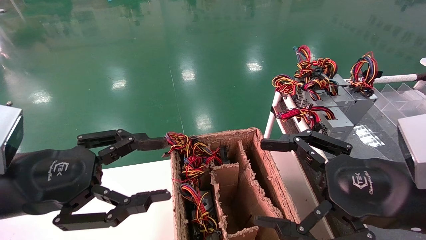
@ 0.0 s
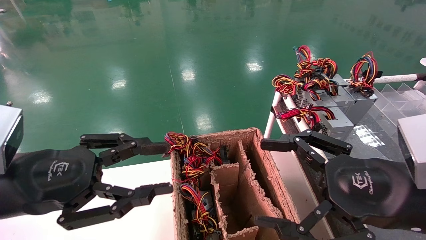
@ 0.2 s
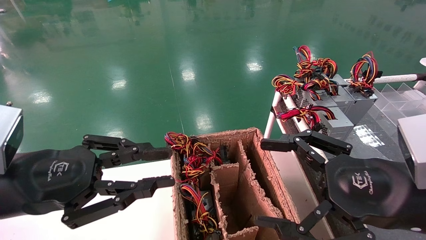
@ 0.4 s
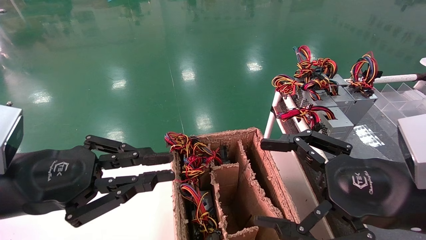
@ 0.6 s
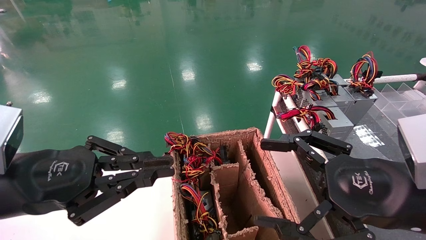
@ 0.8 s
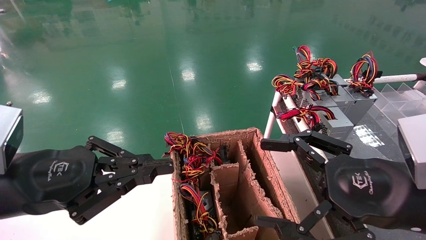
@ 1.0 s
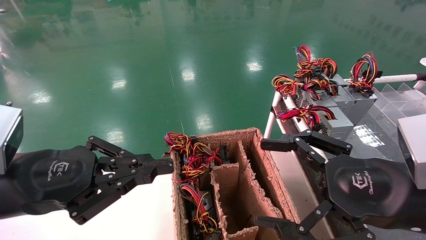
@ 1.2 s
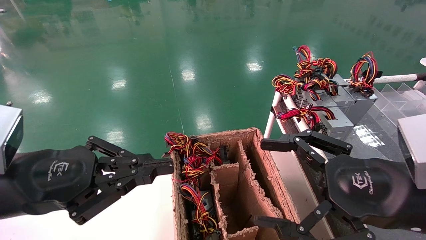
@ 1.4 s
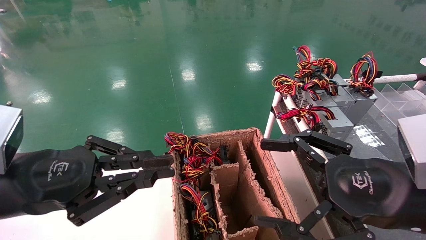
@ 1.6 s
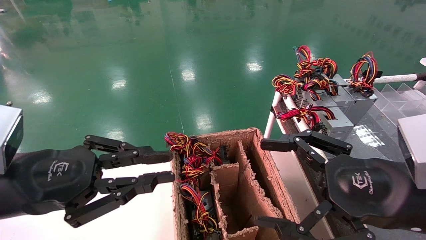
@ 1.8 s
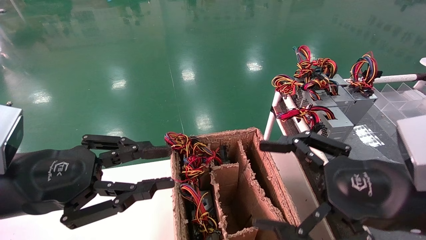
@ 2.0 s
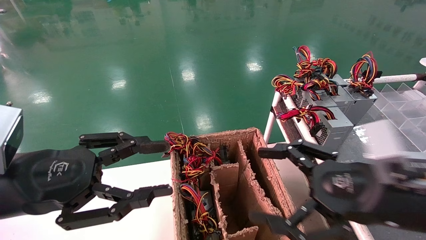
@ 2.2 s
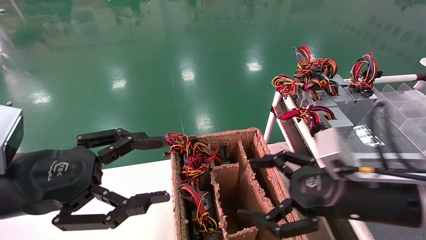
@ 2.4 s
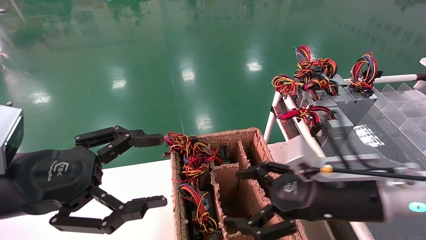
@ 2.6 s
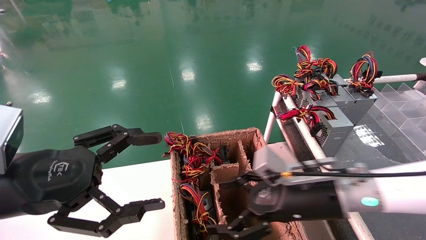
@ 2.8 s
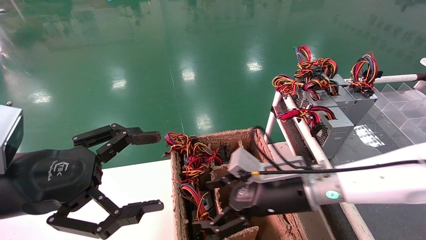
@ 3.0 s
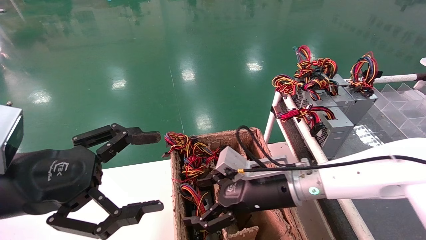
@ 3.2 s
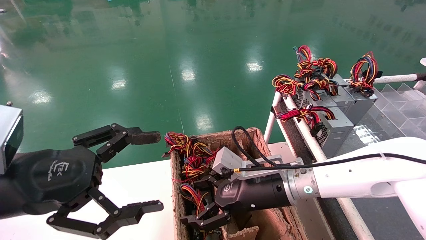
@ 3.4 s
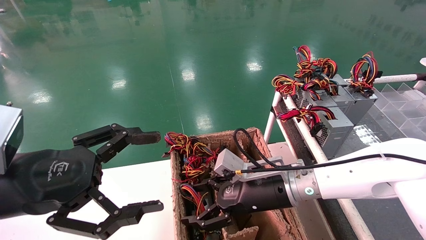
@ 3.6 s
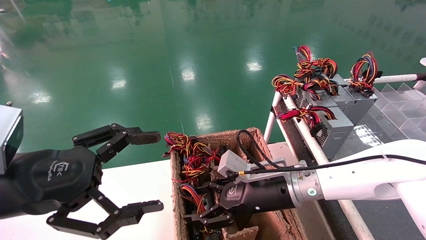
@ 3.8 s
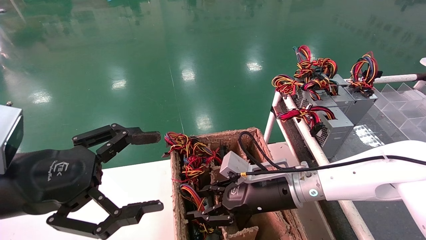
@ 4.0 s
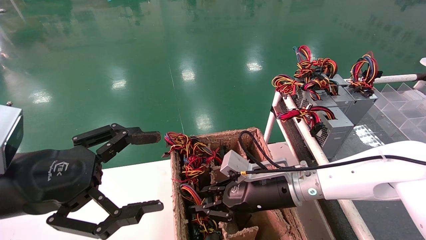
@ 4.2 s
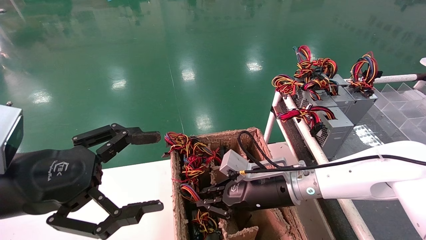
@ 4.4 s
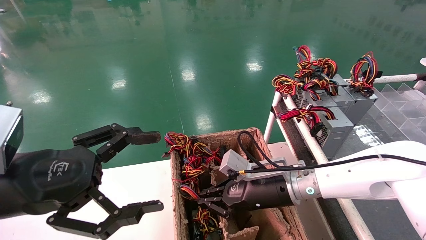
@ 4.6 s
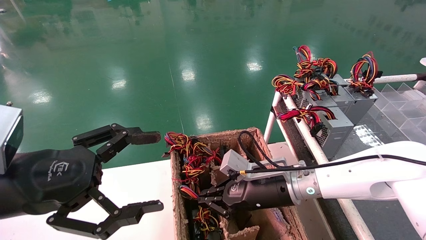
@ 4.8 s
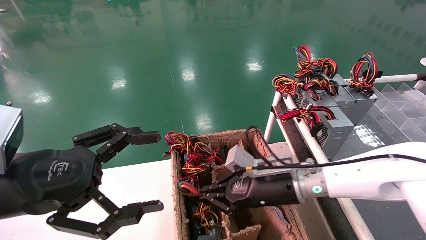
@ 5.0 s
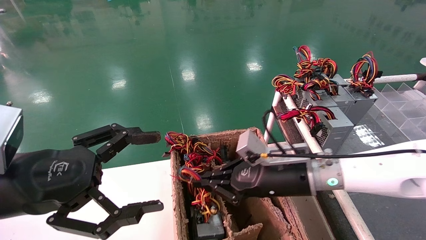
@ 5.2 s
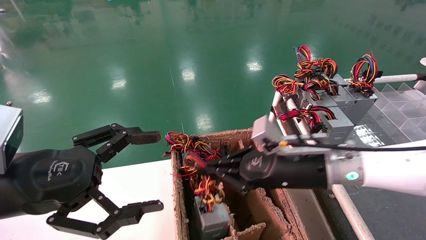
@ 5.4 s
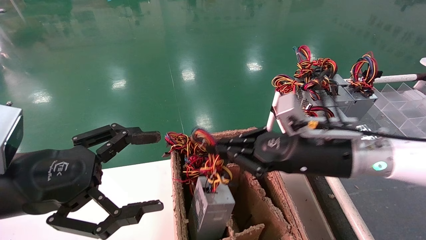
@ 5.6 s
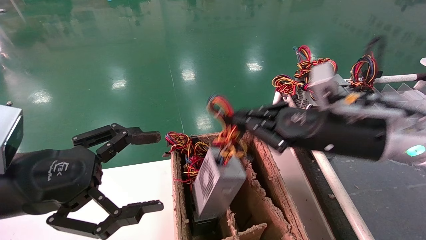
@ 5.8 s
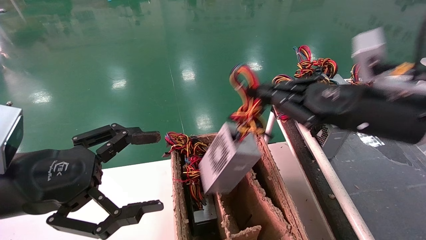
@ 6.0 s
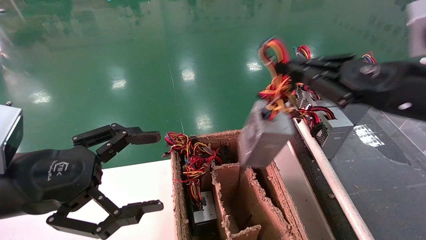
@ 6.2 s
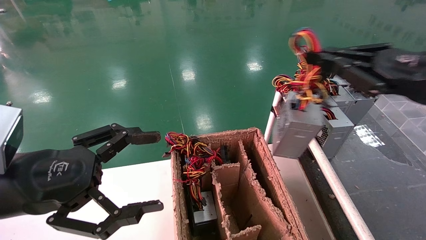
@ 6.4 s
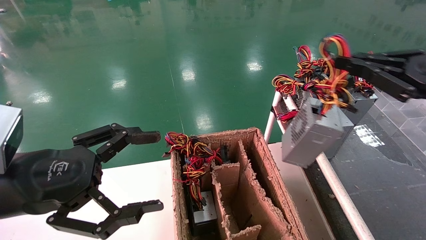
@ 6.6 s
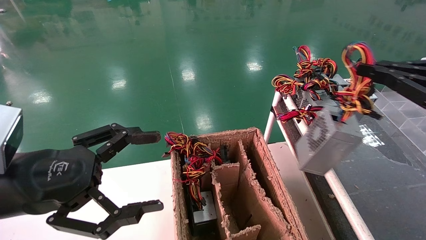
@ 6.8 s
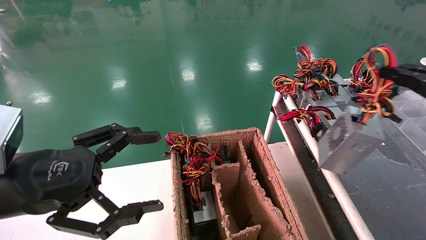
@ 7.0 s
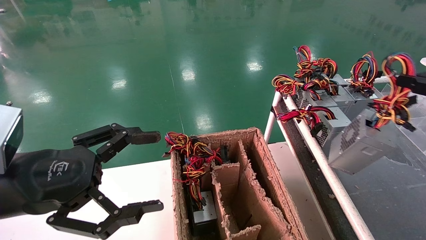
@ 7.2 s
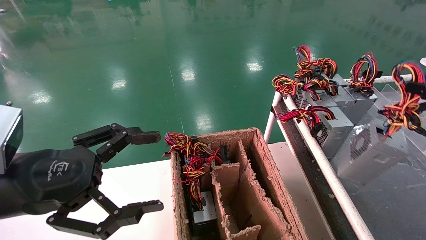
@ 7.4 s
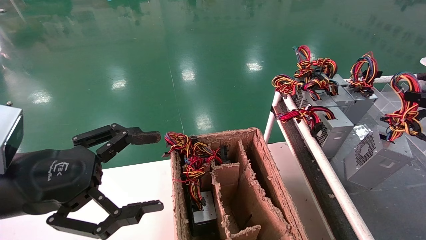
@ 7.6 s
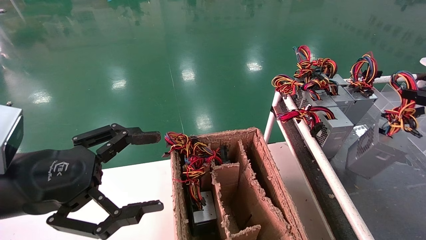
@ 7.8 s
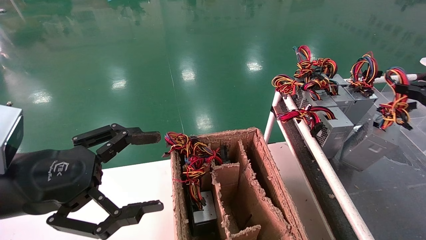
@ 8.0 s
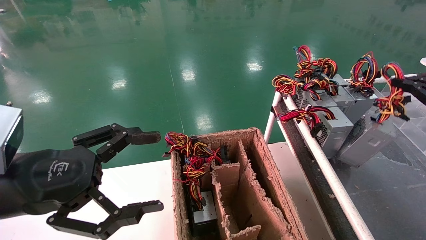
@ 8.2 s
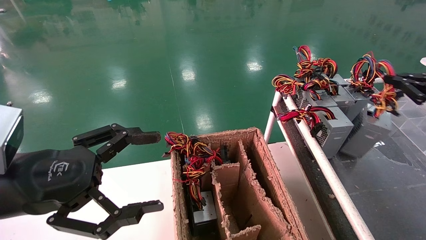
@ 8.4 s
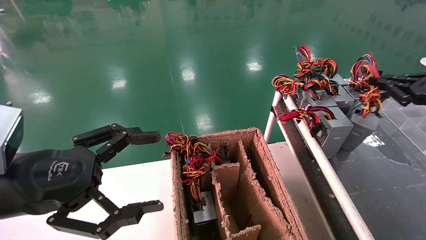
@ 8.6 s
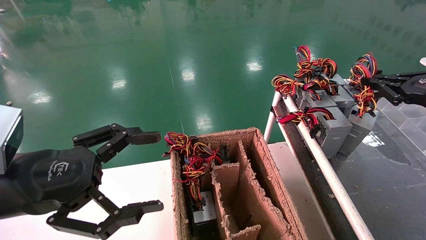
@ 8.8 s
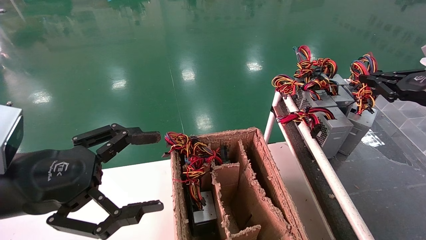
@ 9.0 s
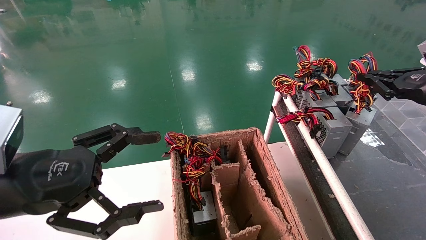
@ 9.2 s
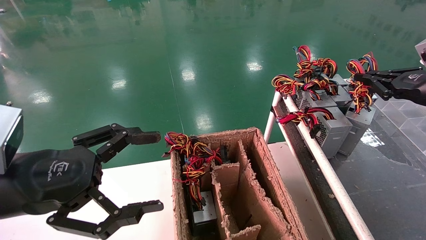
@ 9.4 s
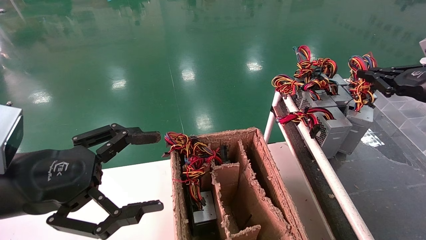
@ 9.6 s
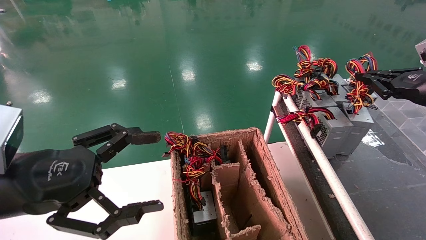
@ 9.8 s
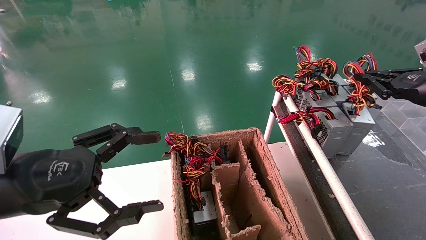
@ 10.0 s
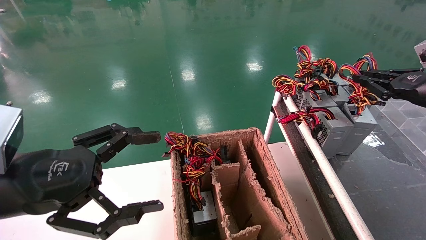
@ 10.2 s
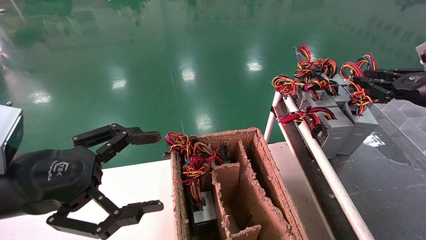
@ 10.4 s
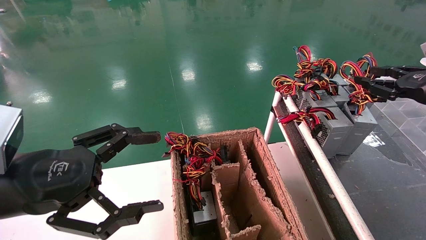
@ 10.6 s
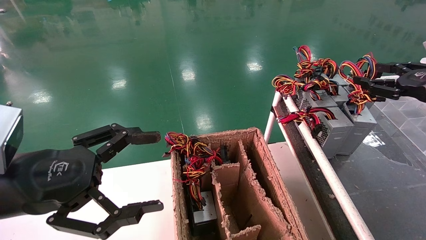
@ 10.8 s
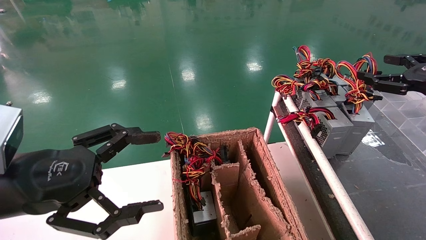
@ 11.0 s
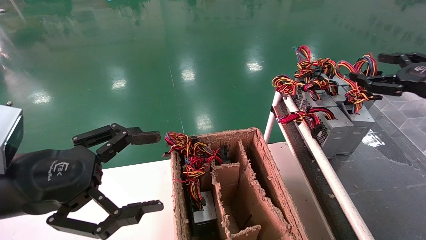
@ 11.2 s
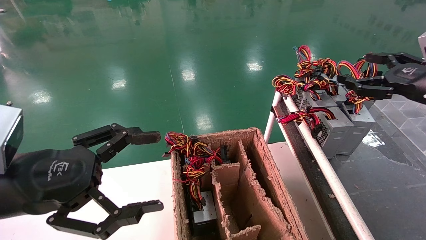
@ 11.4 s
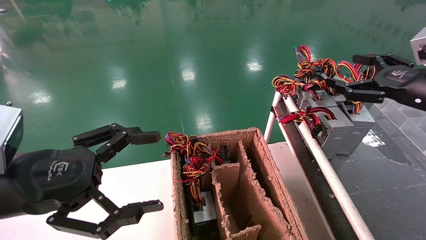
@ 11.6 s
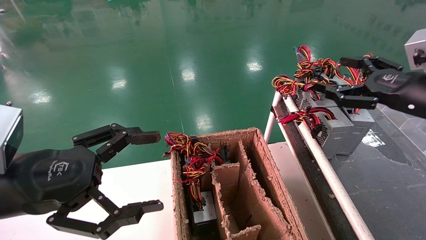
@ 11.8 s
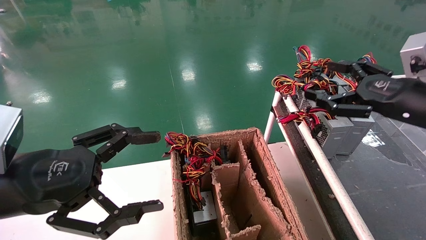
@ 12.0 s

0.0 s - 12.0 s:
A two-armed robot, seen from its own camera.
Step, 1.0 s - 4.6 s: Grab and lift the power supply from the large box.
Step, 4.8 s - 9.8 s: Place the power supply on the operating table.
0.0 s - 1.6 s: The left gripper closes up.
1.6 s - 3.0 s: The left gripper opens up, while the right gripper heads forward, to the left and downward, covering about 20 cm.
3.0 s - 4.4 s: The right gripper shifts by about 5 cm, and closes.
4.4 s - 6.0 s: The right gripper heads upward, to the right and backward, covering roughly 25 cm.
6.0 s - 7.6 s: The right gripper goes roughly 25 cm to the right.
7.6 s - 9.0 s: The right gripper is displaced forward by about 10 cm.
9.0 s - 10.4 s: Neither gripper changes place.
10.4 s - 12.0 s: The right gripper is displaced to the left by roughly 10 cm, and opens up.

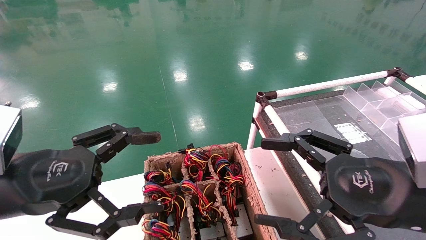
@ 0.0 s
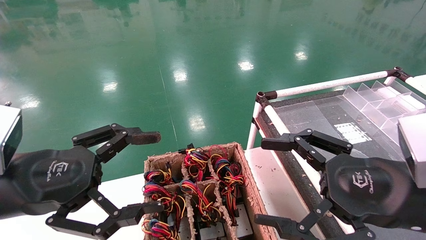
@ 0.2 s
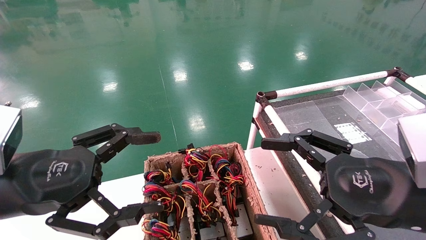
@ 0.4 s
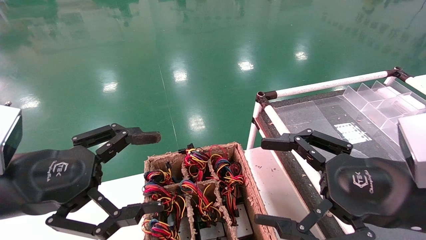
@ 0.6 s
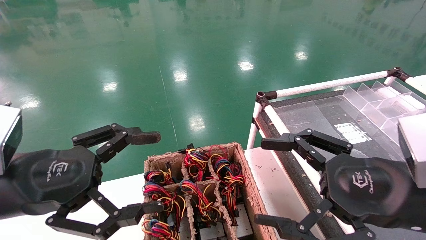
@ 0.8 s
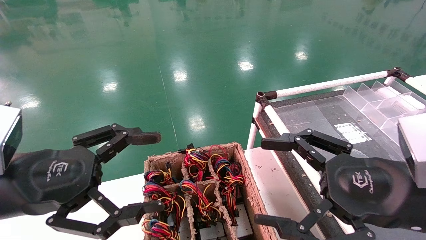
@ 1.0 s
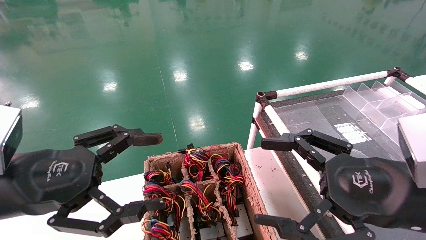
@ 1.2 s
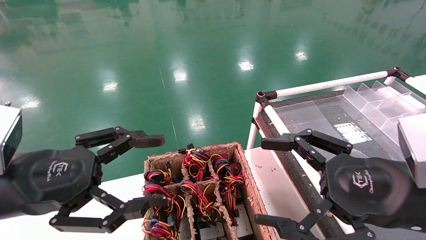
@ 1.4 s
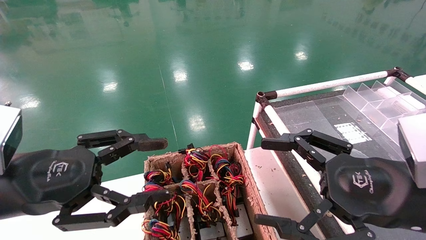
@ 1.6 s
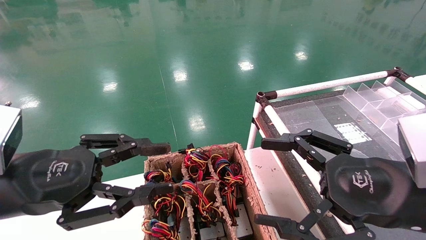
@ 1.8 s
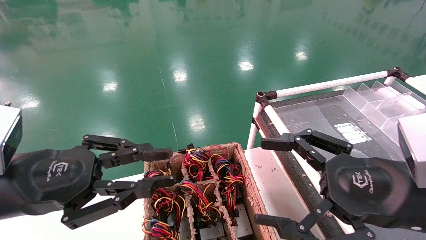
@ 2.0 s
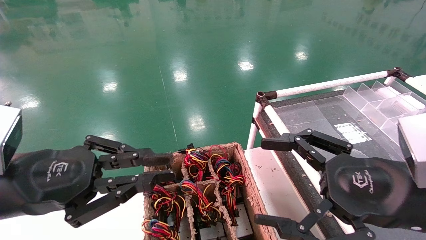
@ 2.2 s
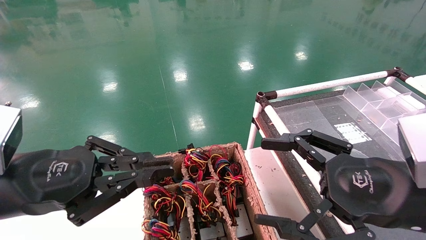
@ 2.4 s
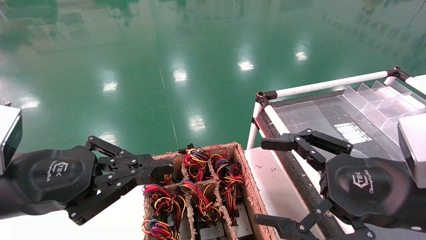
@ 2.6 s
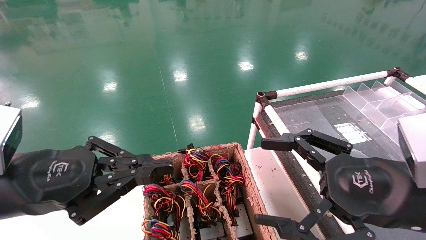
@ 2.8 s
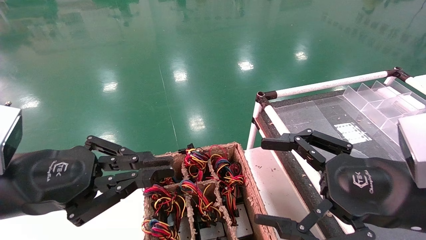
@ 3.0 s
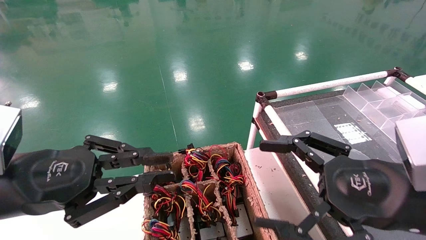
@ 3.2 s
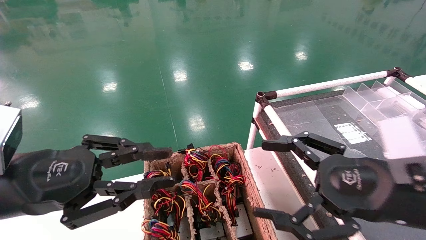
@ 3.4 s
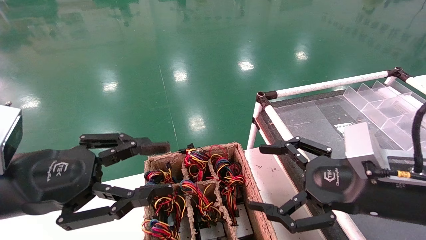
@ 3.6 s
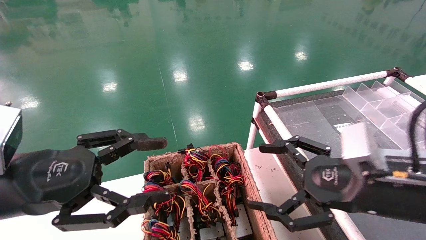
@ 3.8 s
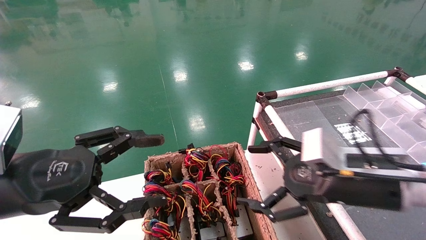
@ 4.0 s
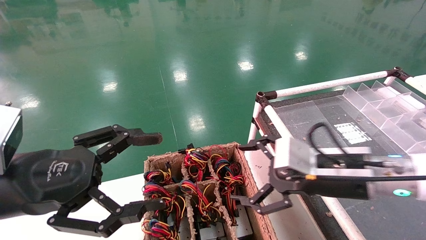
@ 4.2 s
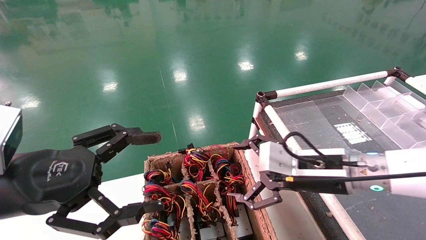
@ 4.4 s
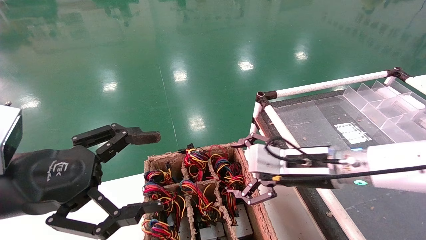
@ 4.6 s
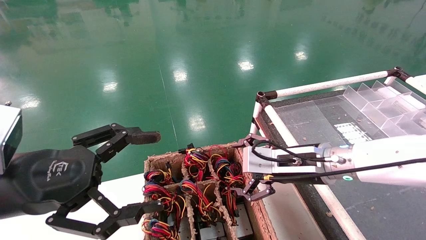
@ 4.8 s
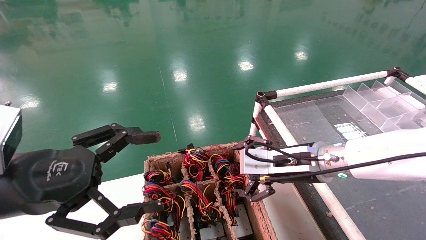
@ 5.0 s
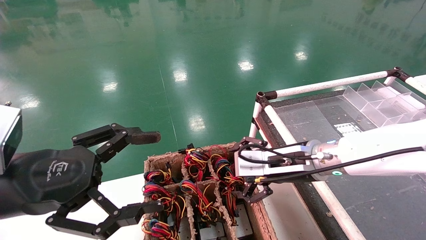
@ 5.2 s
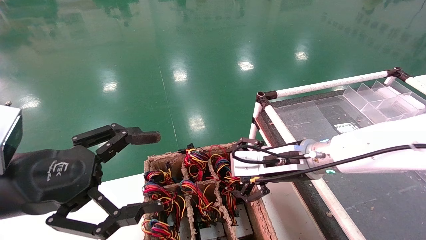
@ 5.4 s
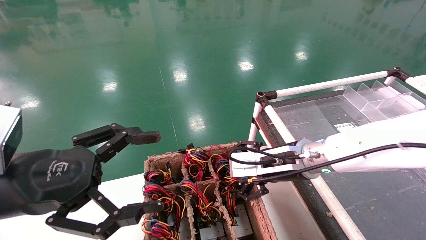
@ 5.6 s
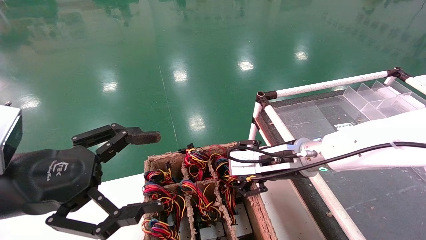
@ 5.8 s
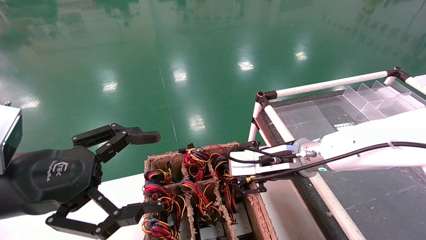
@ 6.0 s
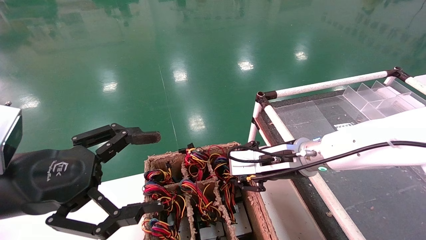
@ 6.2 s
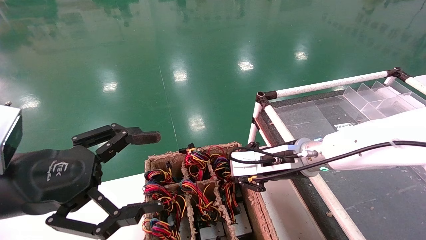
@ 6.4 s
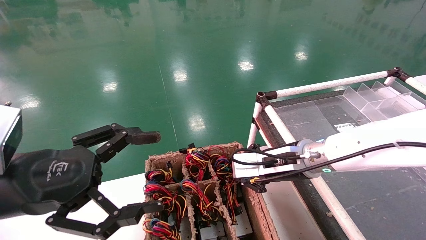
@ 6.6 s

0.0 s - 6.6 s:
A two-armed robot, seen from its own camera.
0.0 s - 1.6 s: Both grippers stay put.
1.6 s - 3.2 s: The left gripper closes up.
3.2 s - 5.0 s: The left gripper opens up. The right gripper goes about 15 cm forward and to the left.
5.0 s - 6.6 s: The right gripper closes.
